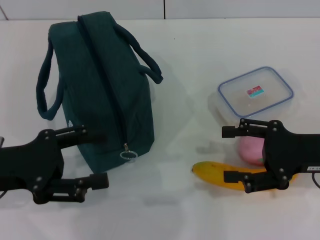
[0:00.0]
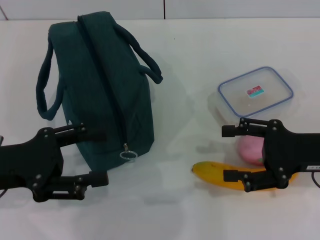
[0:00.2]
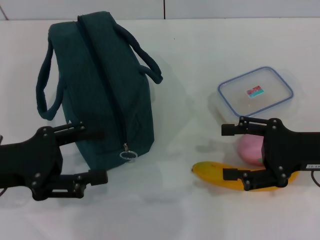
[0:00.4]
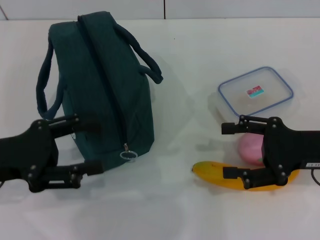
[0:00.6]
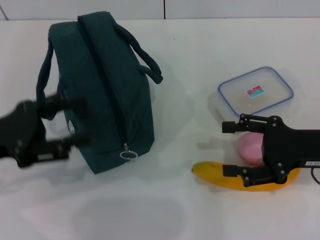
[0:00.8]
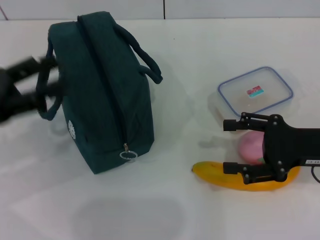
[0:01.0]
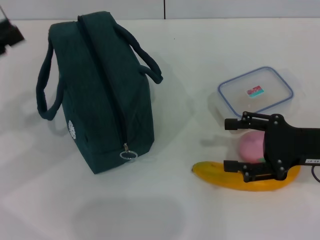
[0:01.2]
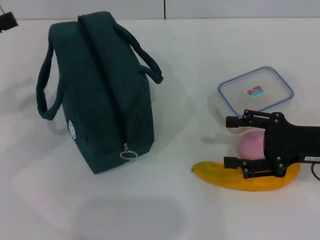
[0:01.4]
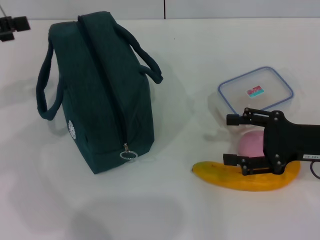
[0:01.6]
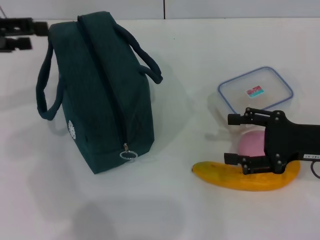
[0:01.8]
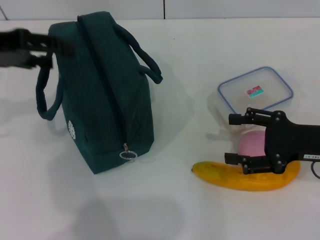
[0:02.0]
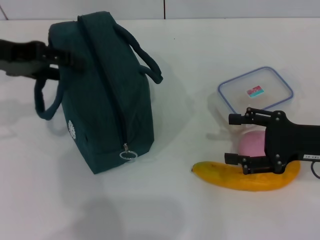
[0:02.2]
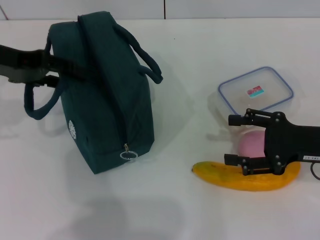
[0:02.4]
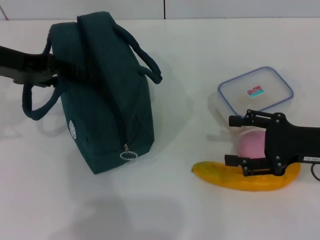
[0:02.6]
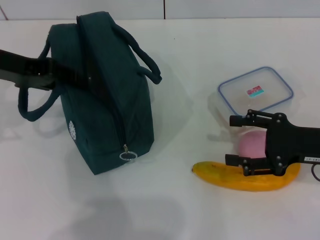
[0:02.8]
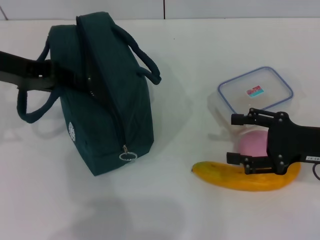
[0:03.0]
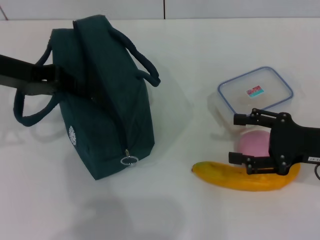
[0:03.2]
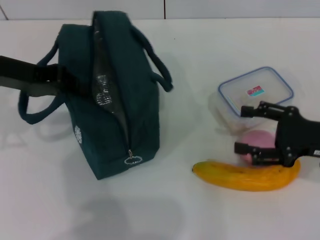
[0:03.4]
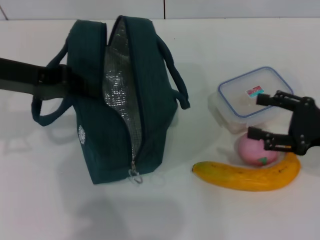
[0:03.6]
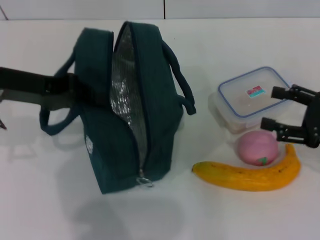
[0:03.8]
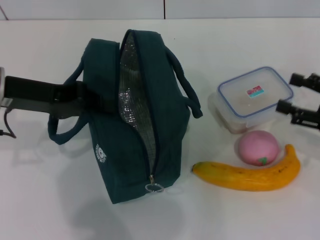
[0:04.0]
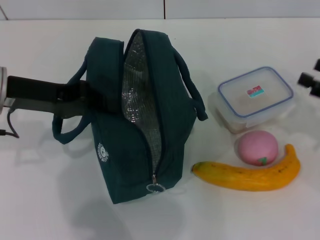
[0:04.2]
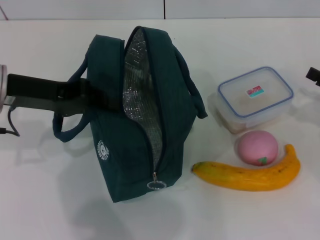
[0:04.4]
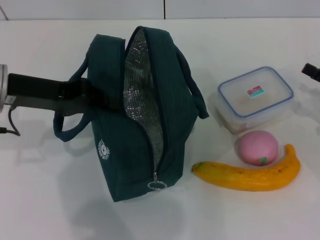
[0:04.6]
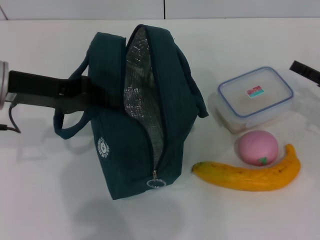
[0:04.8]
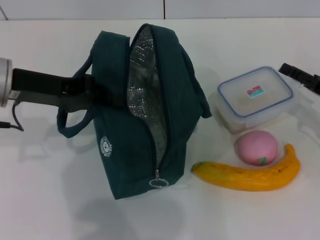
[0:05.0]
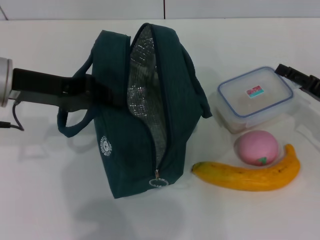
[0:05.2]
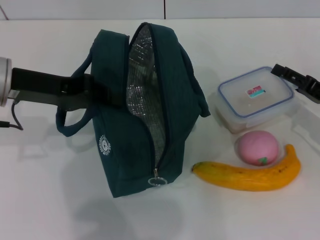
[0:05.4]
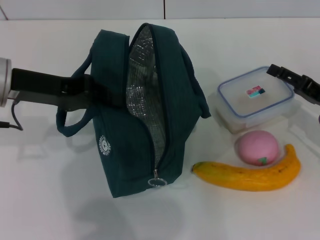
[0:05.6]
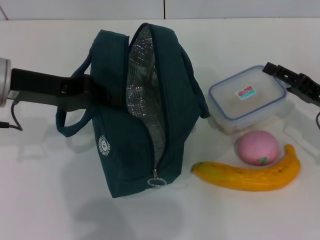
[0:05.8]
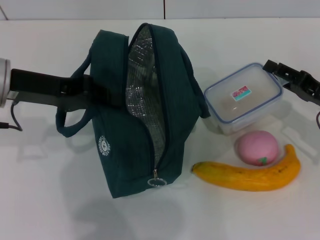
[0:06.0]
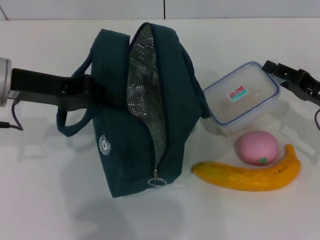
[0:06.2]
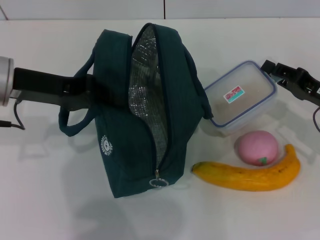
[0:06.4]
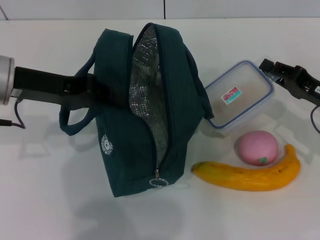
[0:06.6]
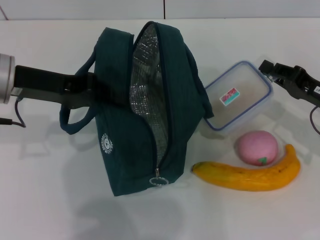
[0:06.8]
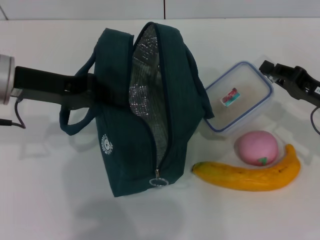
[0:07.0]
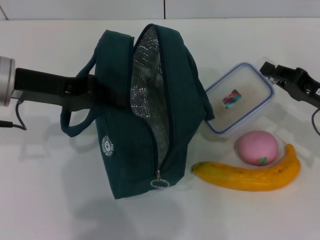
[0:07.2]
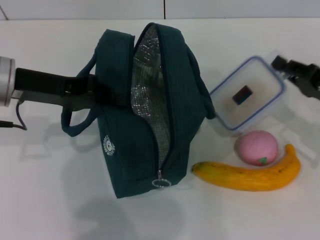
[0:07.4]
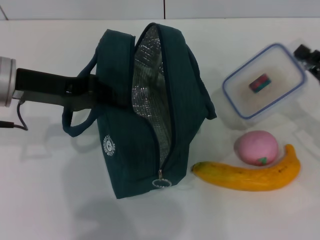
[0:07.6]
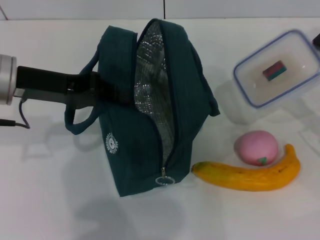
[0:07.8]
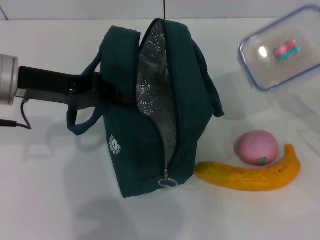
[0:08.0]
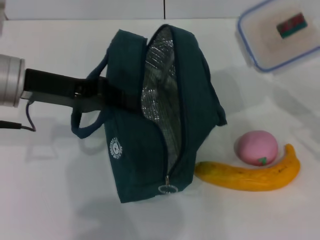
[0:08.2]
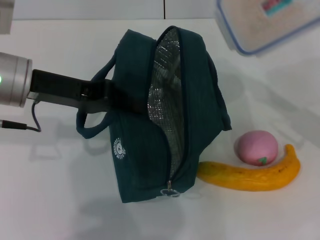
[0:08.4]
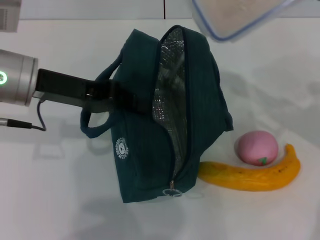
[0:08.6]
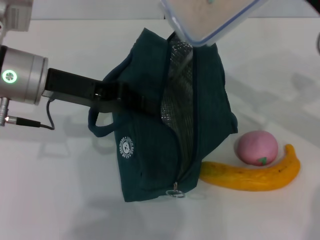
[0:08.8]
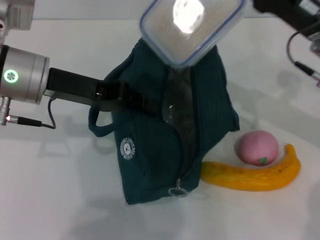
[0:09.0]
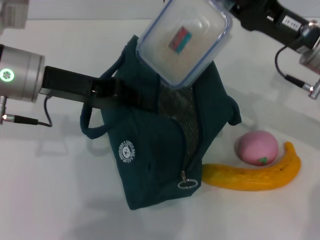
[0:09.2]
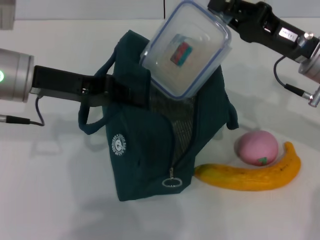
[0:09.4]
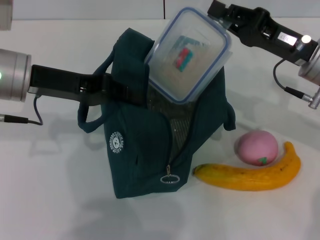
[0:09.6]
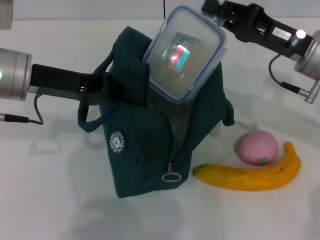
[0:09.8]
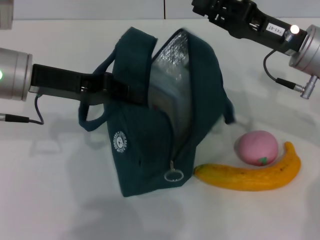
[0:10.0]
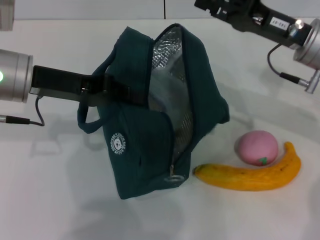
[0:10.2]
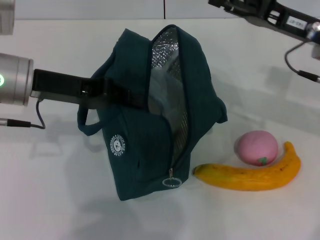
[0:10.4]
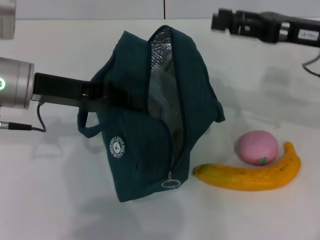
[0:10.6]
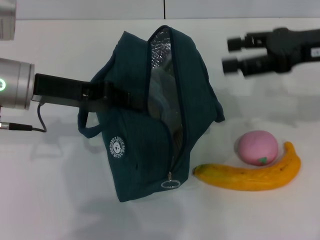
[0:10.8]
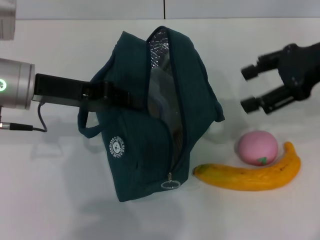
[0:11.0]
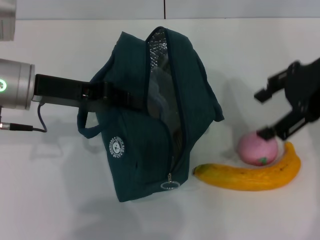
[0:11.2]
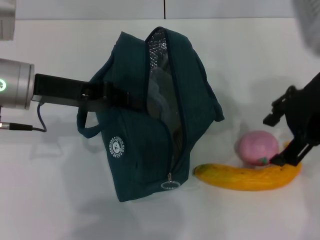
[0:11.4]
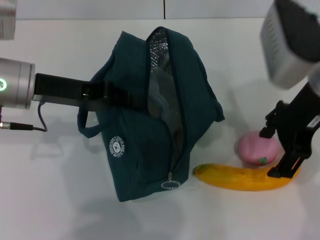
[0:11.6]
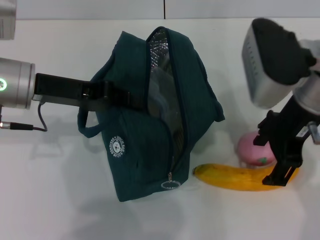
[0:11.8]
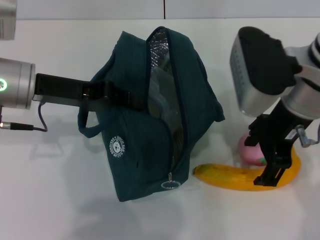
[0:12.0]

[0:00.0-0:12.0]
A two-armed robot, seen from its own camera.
Step, 0:00.0 to 0:03.2: Hold the lunch bag with your left hand.
Step, 0:03.4 to 0:06.8: Pick up the lunch box with your right hand.
Step, 0:07.0 to 0:10.2: Place the lunch box into the lunch bag with your right hand.
0:00.0 to 0:01.6: The left gripper is displaced forward, upward and to the left by about 15 cm.
0:01.6 to 0:03.0: The left gripper shifts approximately 10 cm to the right, and closes.
0:03.0 to 0:04.4: The right gripper is displaced to the right by some 10 cm; the left gripper closes up.
0:04.4 to 0:06.0: The right gripper moves to the left, approximately 5 cm.
0:06.0 to 0:07.6: The right gripper closes its fingers.
0:07.6 to 0:09.0: The right gripper travels to the left, upward and forward by some 15 cm.
0:09.0 to 0:10.4: The right gripper opens.
0:10.4 to 0:12.0: The right gripper is displaced to the left by some 10 cm, and opens its fingers.

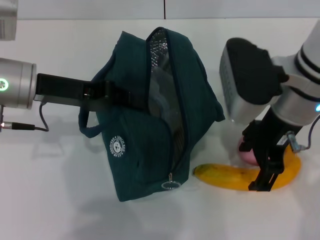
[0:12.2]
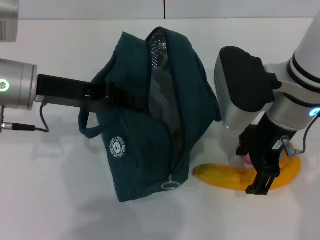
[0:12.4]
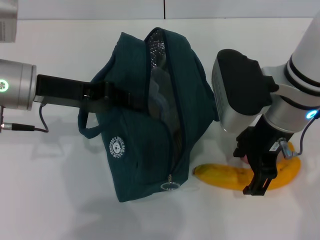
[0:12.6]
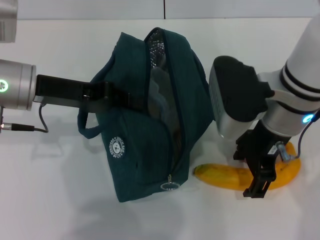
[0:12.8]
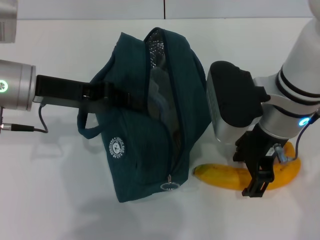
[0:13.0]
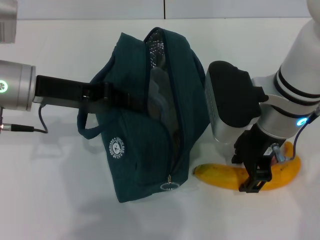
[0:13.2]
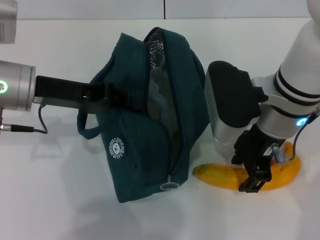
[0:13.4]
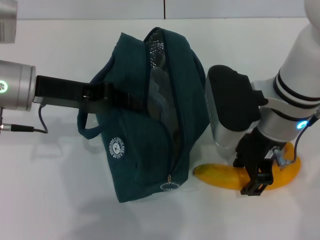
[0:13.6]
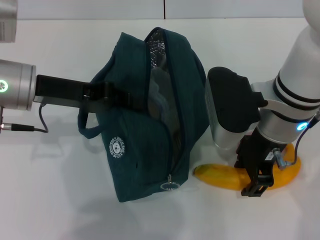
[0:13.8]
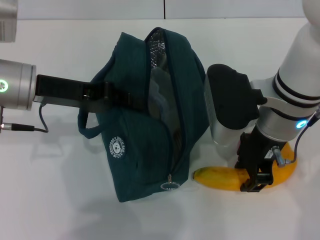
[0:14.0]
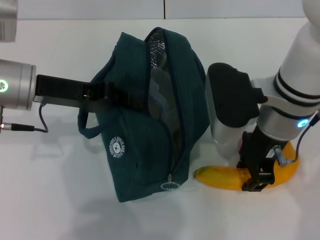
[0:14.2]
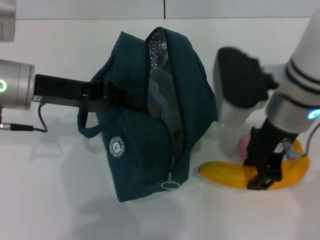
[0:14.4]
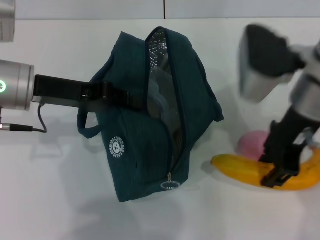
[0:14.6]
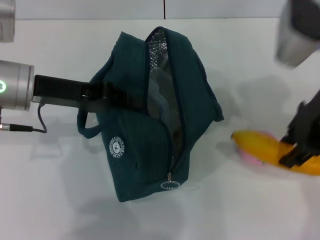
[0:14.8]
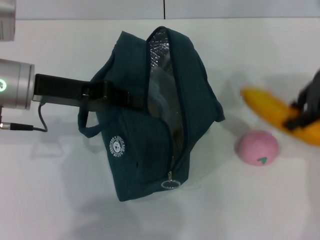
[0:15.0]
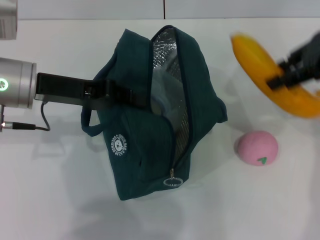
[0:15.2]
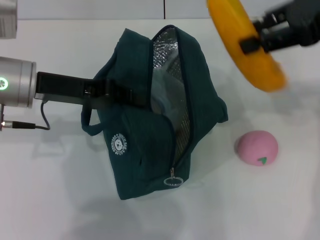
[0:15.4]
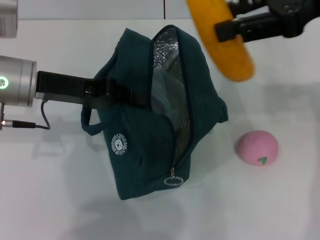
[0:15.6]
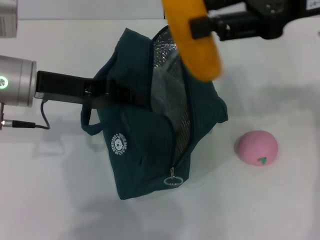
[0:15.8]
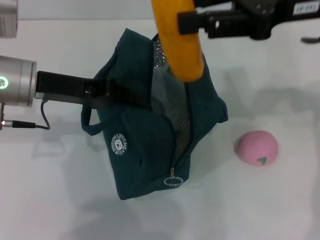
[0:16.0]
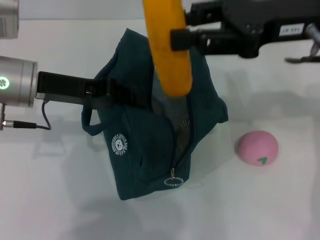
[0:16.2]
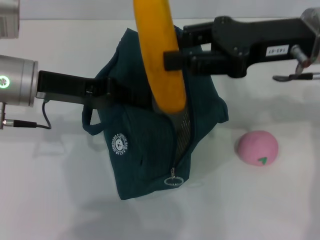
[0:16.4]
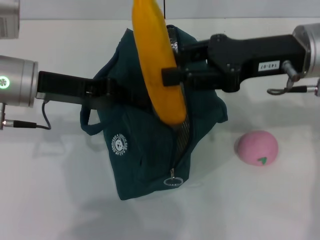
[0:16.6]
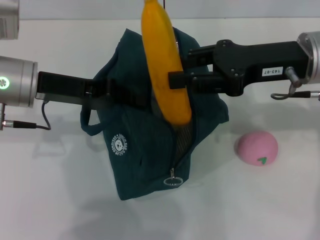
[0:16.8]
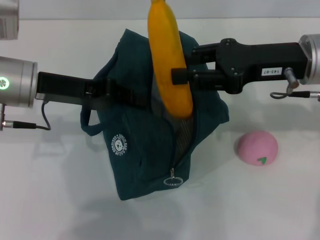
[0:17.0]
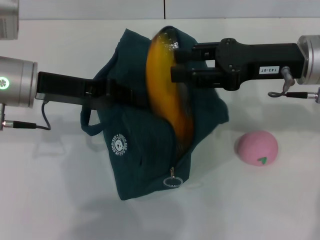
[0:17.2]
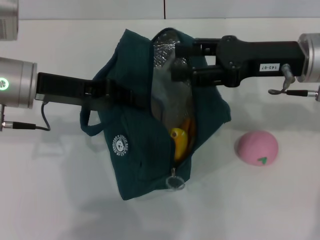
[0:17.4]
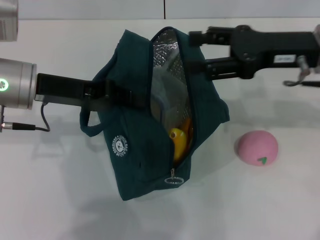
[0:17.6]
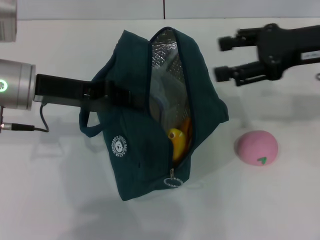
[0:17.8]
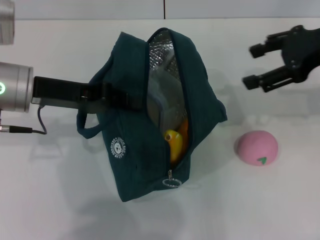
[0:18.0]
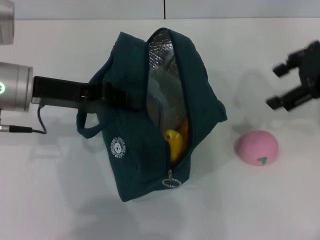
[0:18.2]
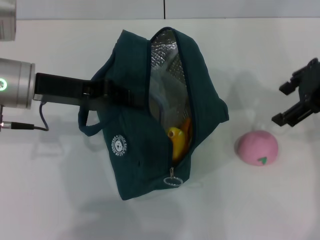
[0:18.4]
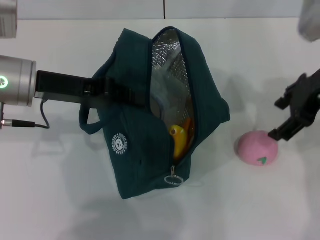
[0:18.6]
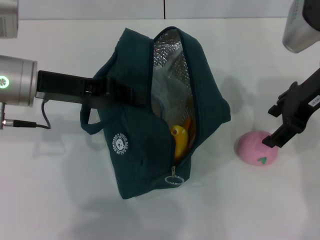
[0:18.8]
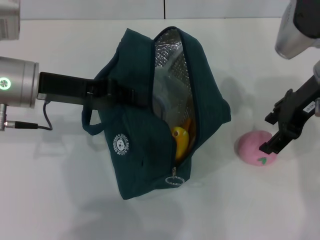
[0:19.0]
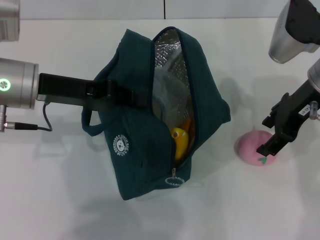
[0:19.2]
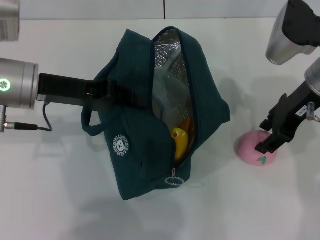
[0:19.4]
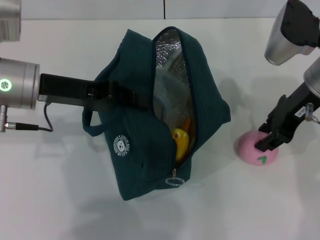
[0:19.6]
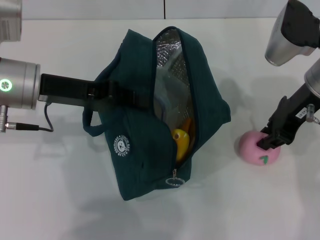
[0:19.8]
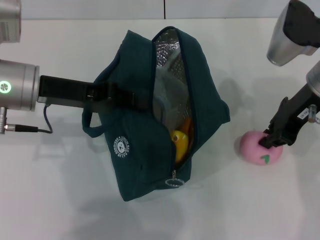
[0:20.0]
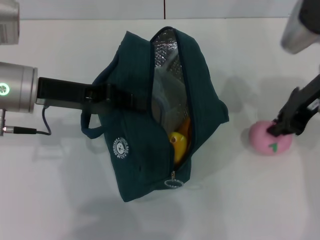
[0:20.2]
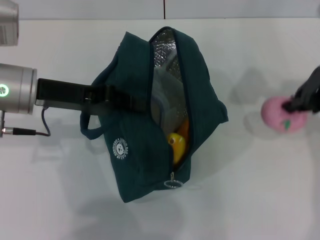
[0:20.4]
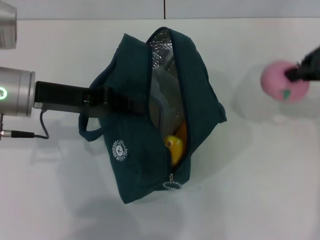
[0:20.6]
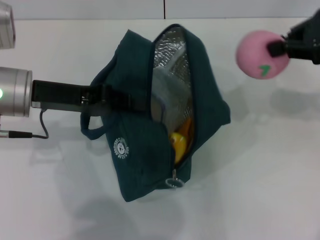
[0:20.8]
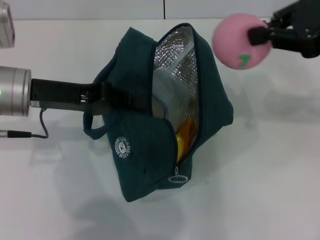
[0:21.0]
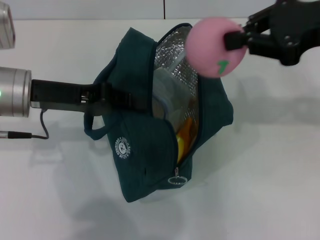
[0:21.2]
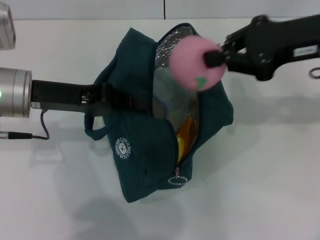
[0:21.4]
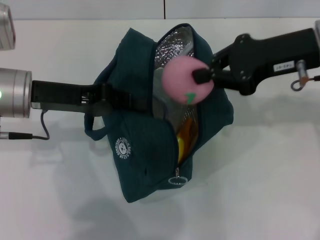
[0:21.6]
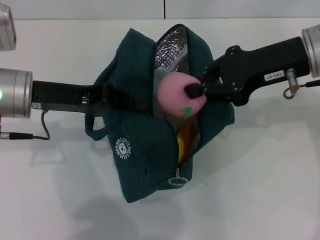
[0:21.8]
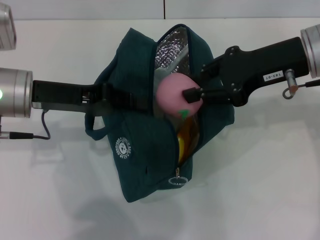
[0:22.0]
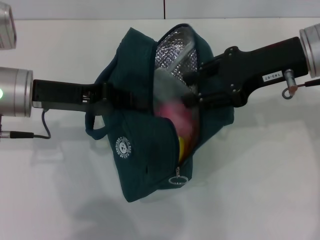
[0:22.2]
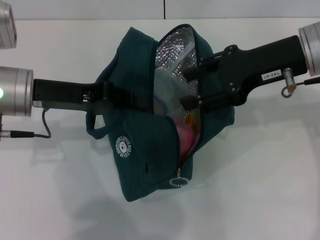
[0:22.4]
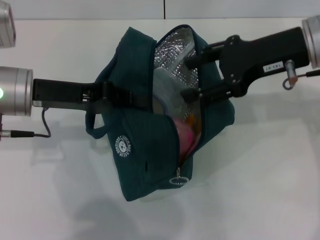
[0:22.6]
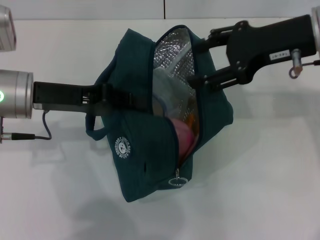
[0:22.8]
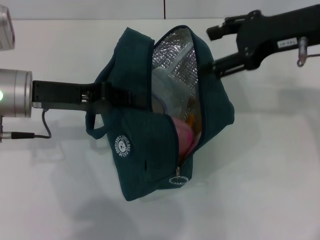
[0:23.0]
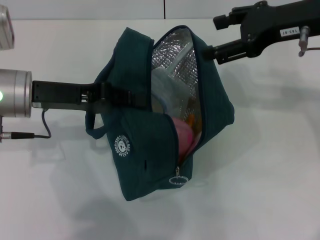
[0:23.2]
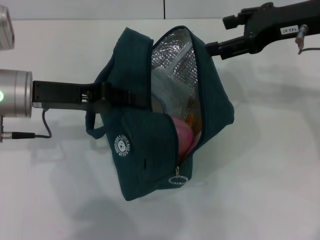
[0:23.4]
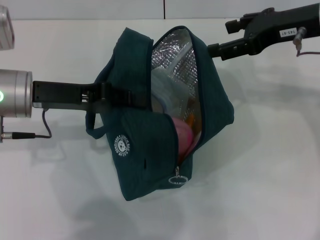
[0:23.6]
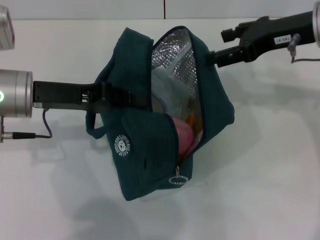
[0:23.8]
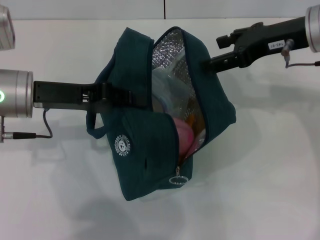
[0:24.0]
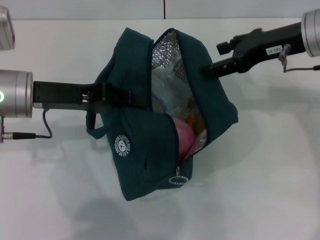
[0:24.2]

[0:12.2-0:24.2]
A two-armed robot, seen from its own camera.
Step, 0:14.2 to 0:17.6: Put the banana into the lunch bag with your right hand.
Step, 0:17.8 to 0:19.8: Grab the peach with your right hand.
0:12.2 to 0:13.8: The grippers stay close to where they were, moving slightly.
0:13.8 to 0:15.2: The right gripper shifts roughly 20 cm to the right and upward.
0:15.2 to 0:16.6: The right gripper goes some 10 cm downward and to the left.
0:16.6 to 0:18.2: The right gripper travels to the right by about 5 cm.
0:18.2 to 0:19.8: The right gripper heads downward and to the left, covering approximately 10 cm, and closes.
0:19.8 to 0:21.2: The right gripper heads upward, covering about 10 cm, and closes up.
0:21.2 to 0:22.6: The right gripper moves approximately 5 cm, and opens up.
